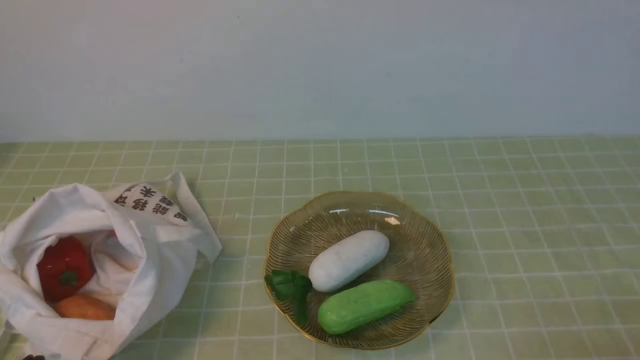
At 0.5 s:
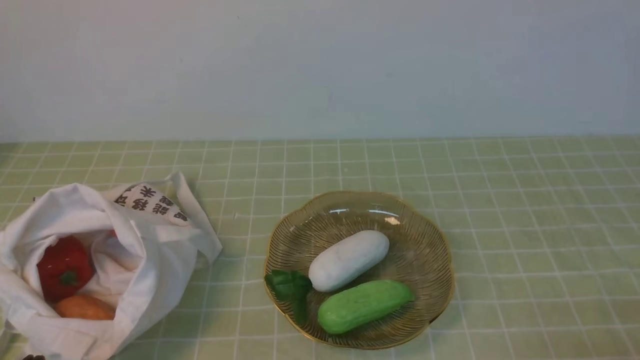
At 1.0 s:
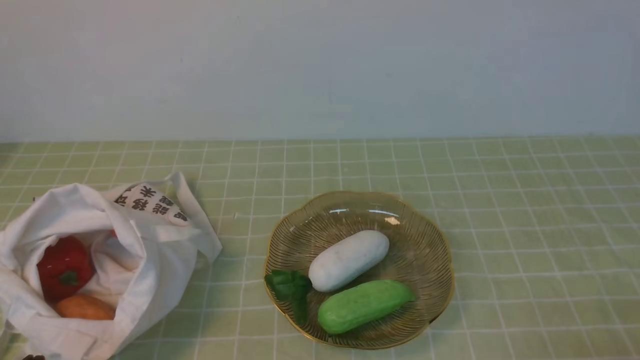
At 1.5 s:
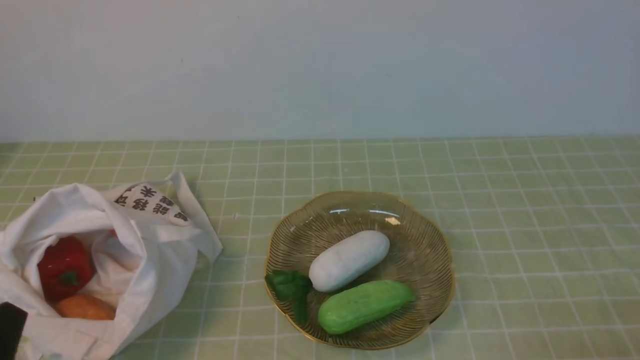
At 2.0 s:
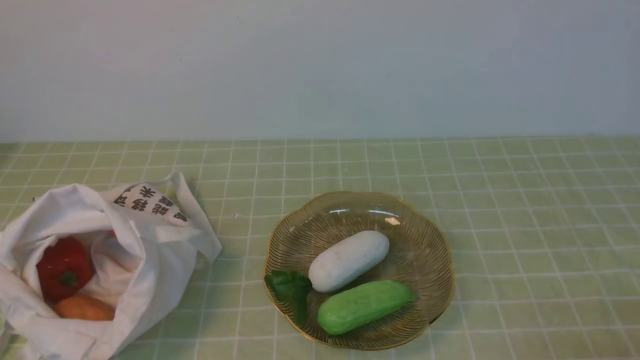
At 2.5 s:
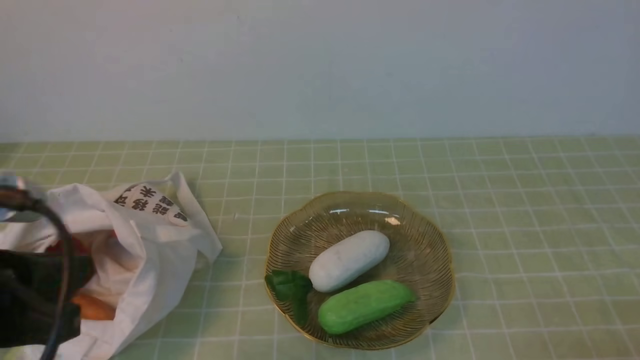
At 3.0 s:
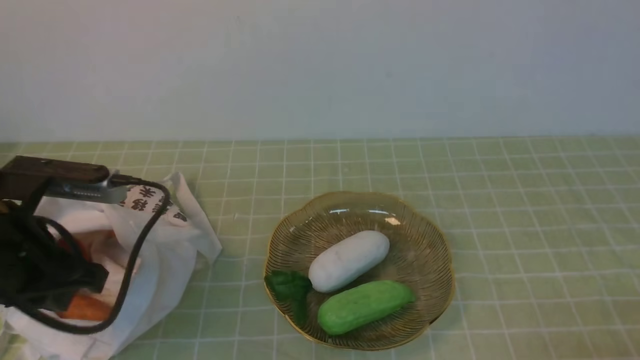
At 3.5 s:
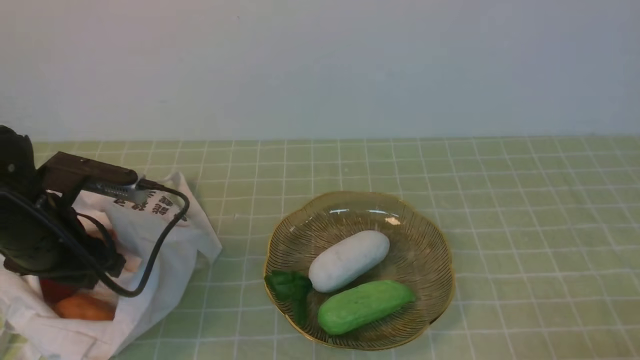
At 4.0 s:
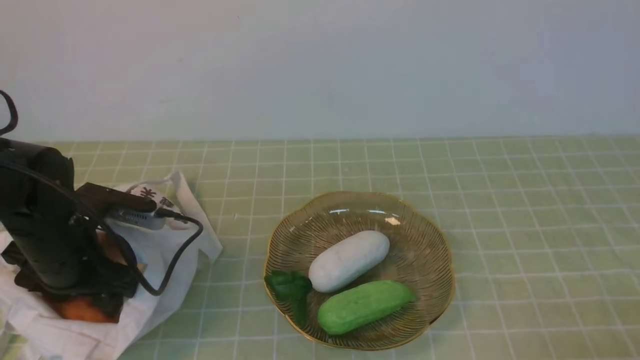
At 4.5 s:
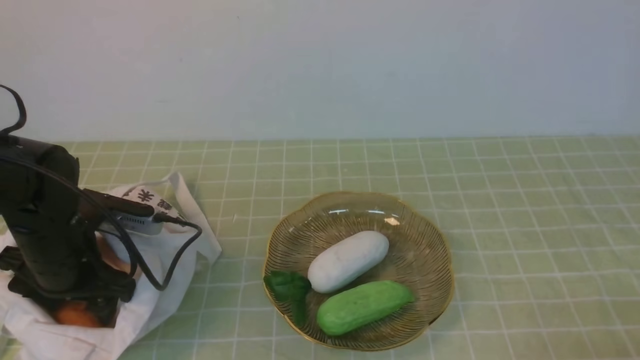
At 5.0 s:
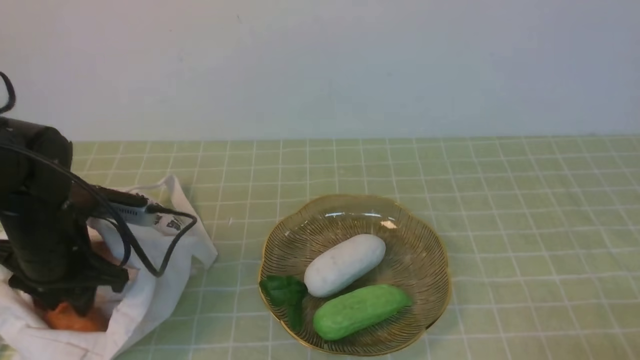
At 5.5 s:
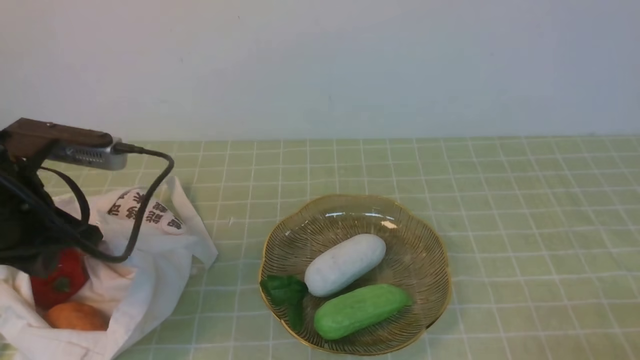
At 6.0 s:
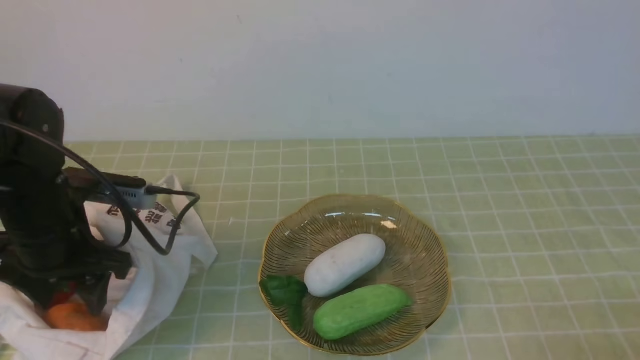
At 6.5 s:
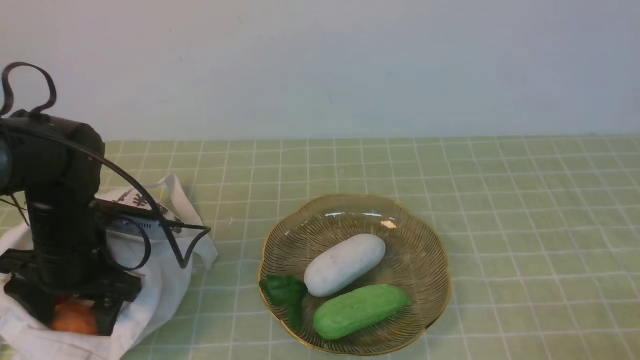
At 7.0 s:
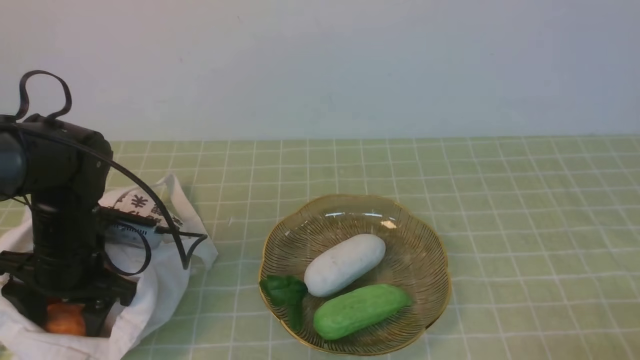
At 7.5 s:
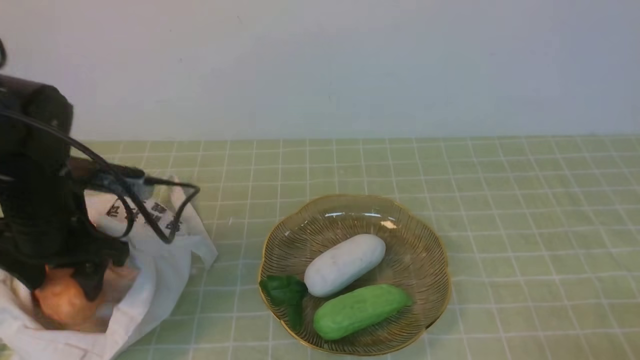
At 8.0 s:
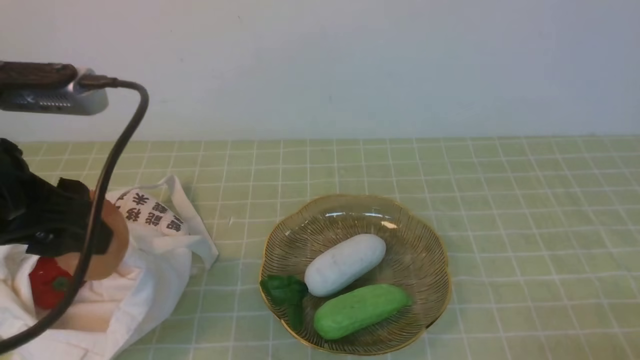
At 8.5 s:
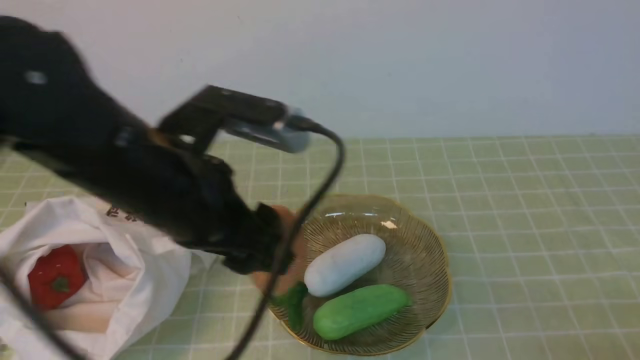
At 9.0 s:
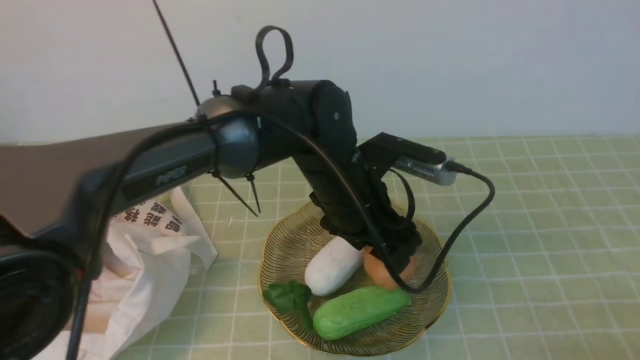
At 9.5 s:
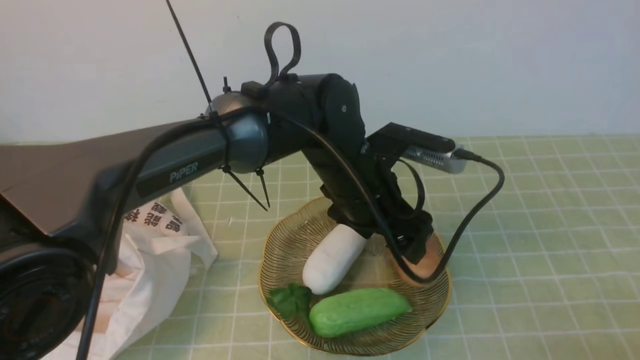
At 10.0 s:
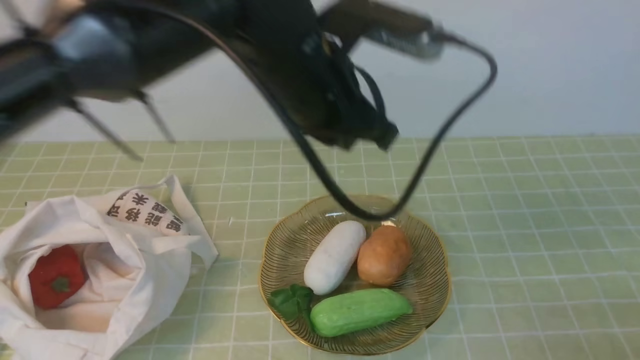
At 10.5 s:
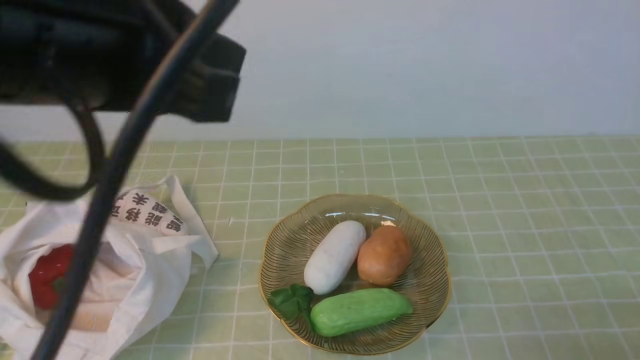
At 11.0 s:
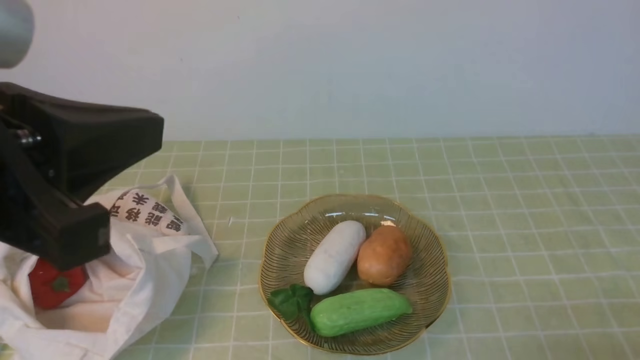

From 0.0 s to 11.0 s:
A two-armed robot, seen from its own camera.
Task of the whole recording: take vegetables from bag on green coffee tablecloth place on plate.
Step, from 0.0 s to 6.5 s: Grasp the potato with left gripper.
Step, from 7.0 s to 9.5 s: Place the potato on the plate with left gripper.
From 2.0 s to 3.5 s: The left gripper goes some 20 cm forward, and opens up.
From 3.5 s to 5.5 s: The left gripper is displaced upward by approximately 5 cm, and closes up.
From 5.5 s to 7.5 s: The left gripper heads downward, covering roughly 5 cm, and opens up.
From 7.5 s to 9.0 s: The left gripper is displaced to the right by some 25 cm.
From 9.0 s to 11.0 s: The left gripper is displaced backward, upward and to the left by roughly 30 cm, and closes up.

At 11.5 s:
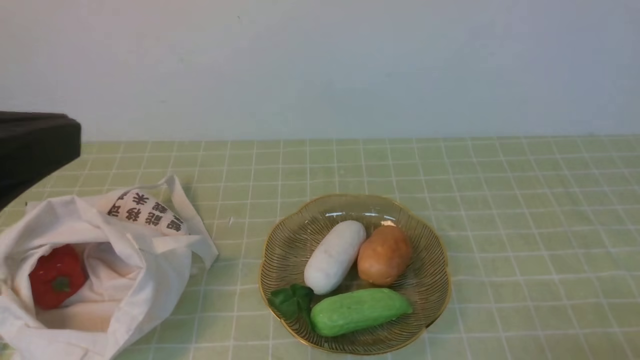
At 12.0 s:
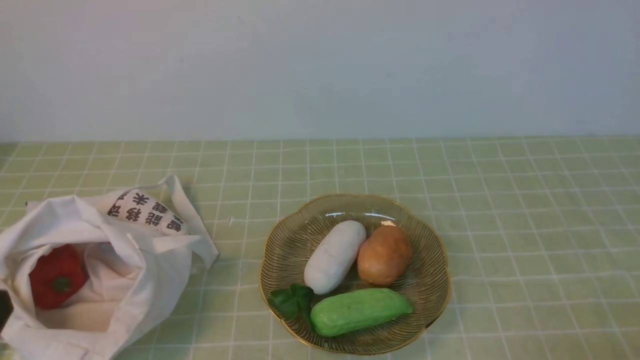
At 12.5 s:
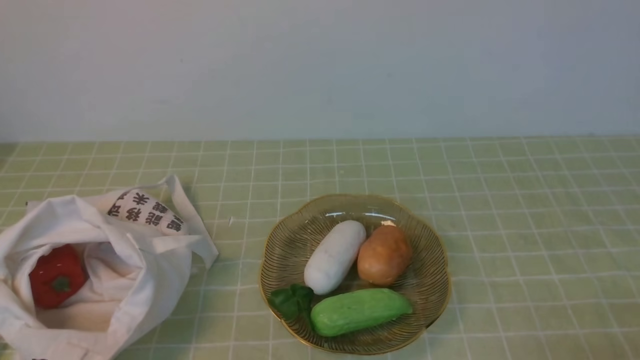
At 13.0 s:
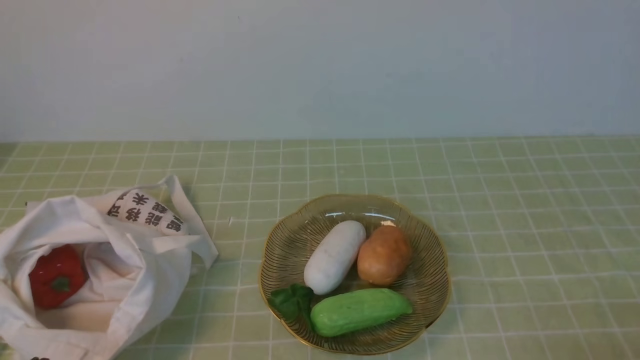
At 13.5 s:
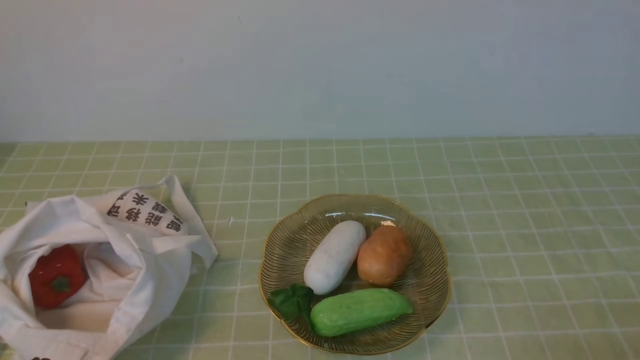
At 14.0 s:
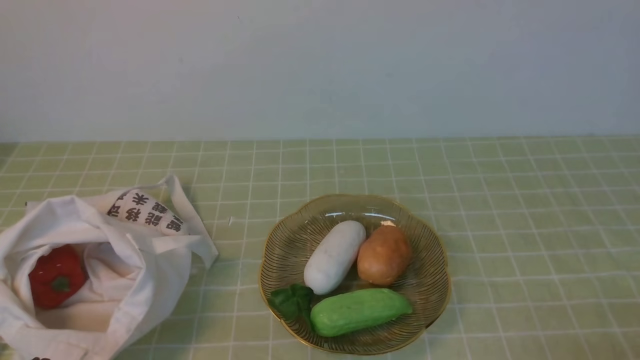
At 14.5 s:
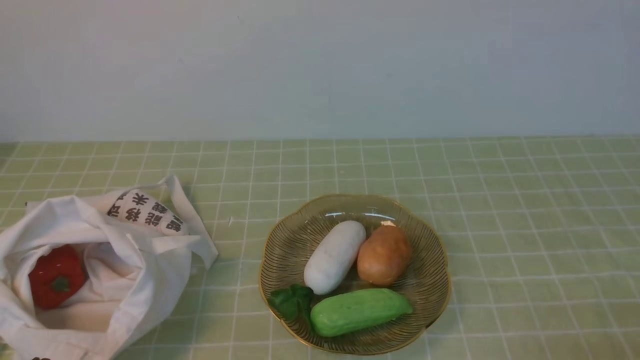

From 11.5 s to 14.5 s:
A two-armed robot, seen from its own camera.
Task of the whole recording: take vegetables from bag on green coffee tablecloth place on plate.
From 11.5 s to 13.0 s: The left gripper heads downward, covering about 25 cm.
From 13.0 s to 14.5 s: Neither gripper changes place.

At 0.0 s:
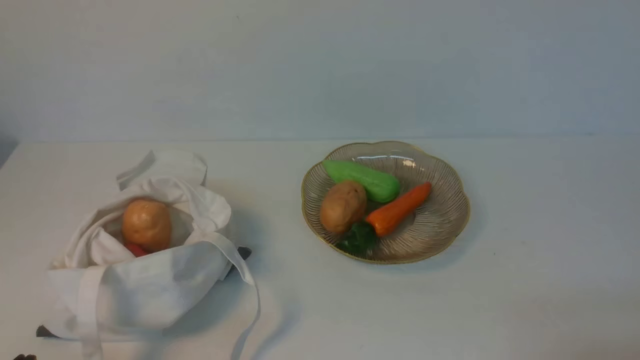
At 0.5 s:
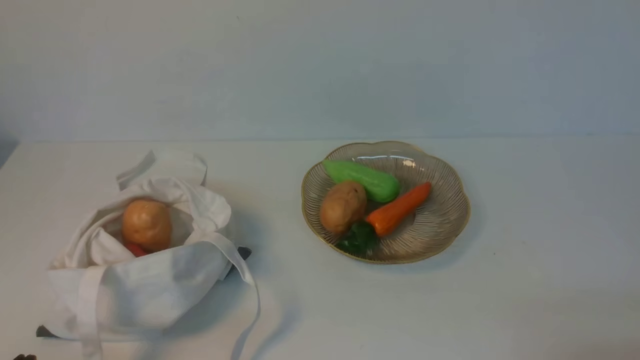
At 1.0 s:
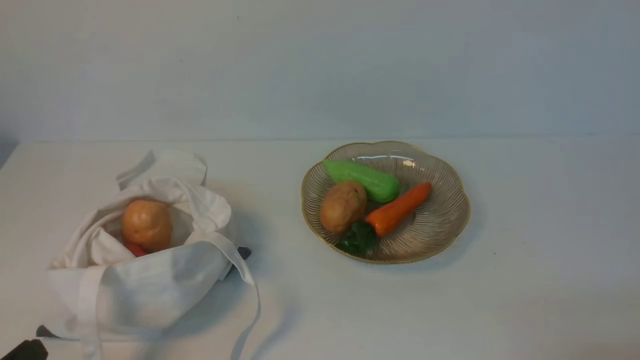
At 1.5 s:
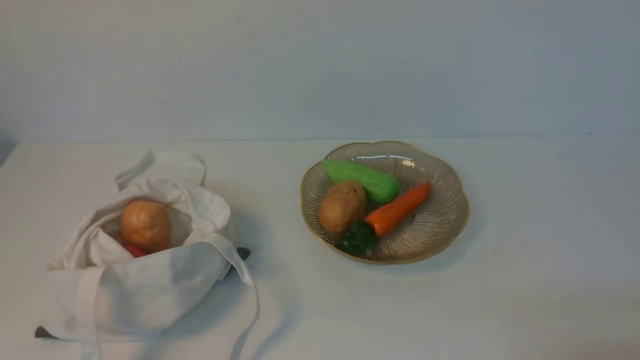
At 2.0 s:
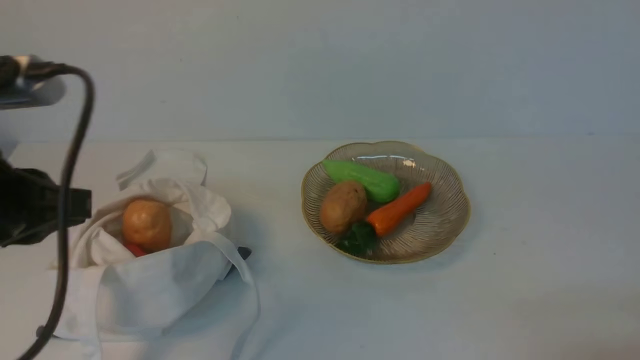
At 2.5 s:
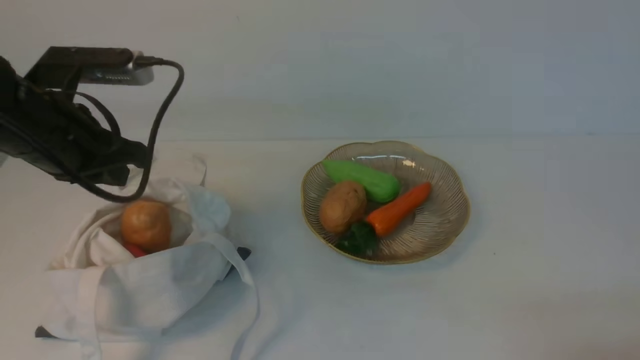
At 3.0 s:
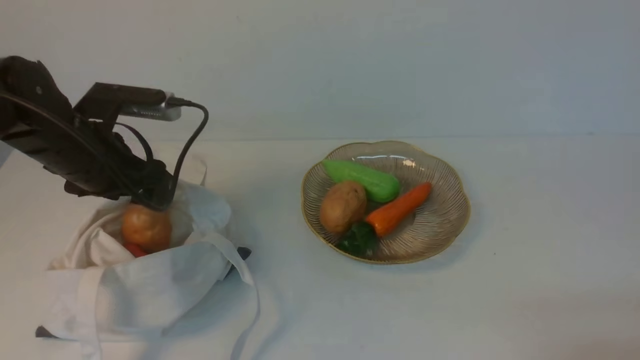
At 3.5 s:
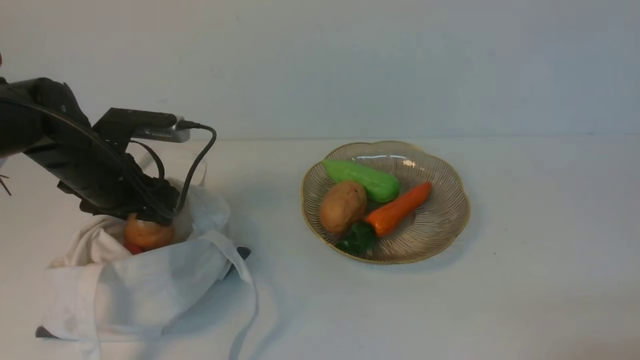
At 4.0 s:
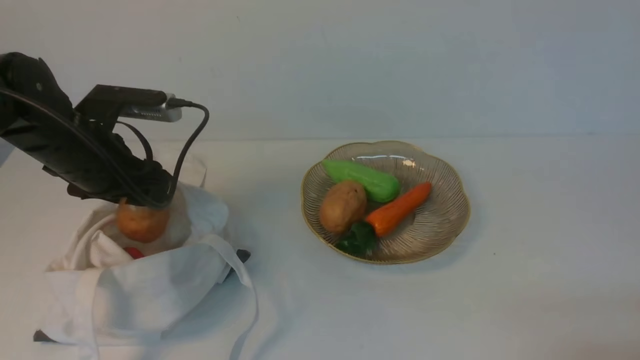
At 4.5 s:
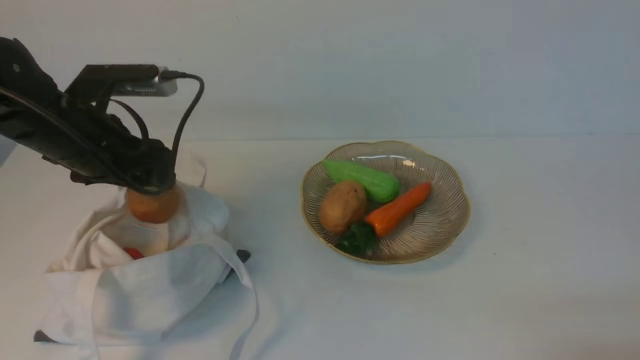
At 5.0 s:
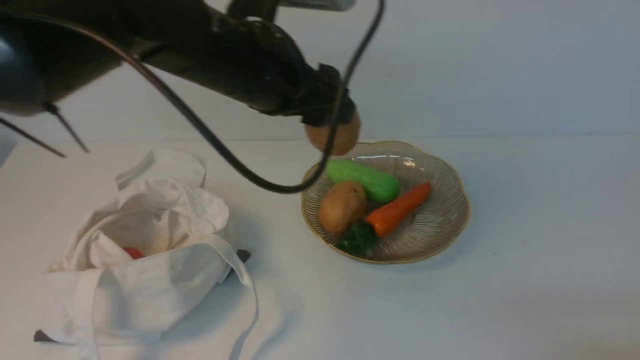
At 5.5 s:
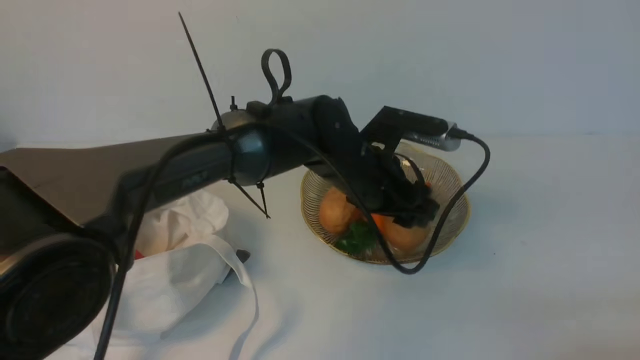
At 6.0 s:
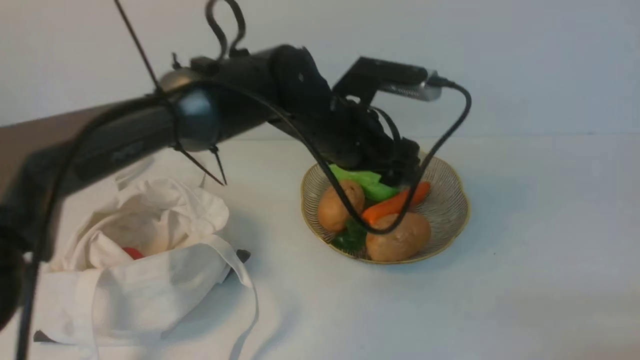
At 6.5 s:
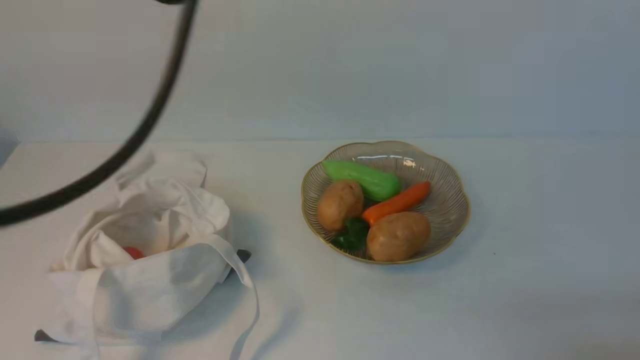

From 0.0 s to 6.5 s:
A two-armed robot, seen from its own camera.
Task of the whole recording: take vegetables from cloth bag on white table place on plate.
Step, from 0.0 s to 3.5 s: Grasp the potato with left gripper.
Step, from 4.0 s to 5.5 s: Place the potato on the plate with left gripper.
From 0.0 s to 2.0 s: The left gripper travels upward and forward by roughly 25 cm.
From 2.0 s to 4.5 s: The left gripper moves forward, some 15 cm, and opens its fingers.
From 4.5 s to 6.5 s: The left gripper moves upward, backward and to the right, about 25 cm, and closes.
